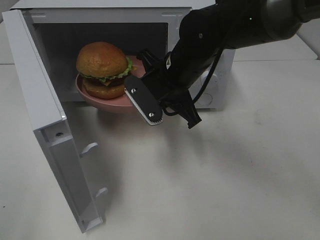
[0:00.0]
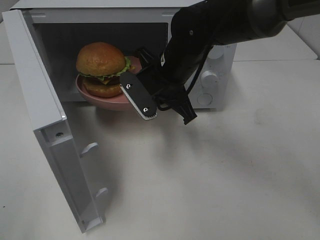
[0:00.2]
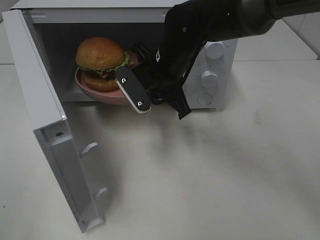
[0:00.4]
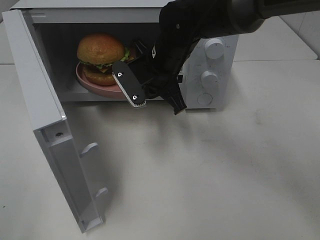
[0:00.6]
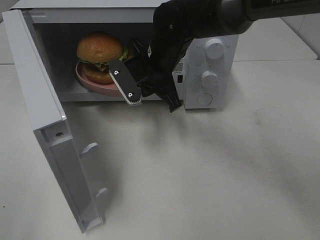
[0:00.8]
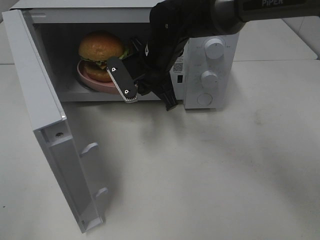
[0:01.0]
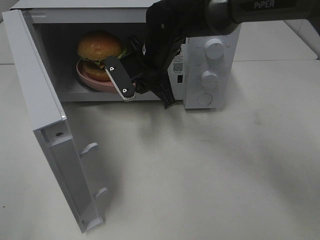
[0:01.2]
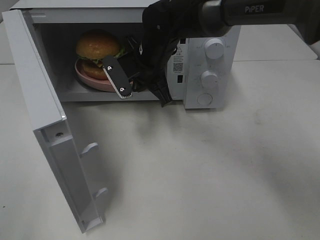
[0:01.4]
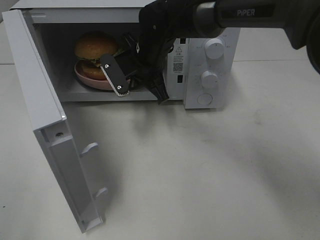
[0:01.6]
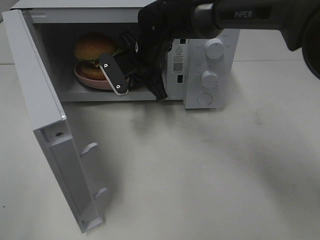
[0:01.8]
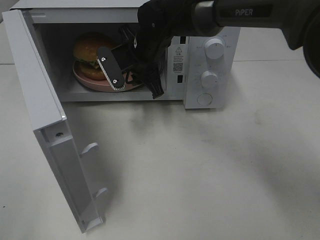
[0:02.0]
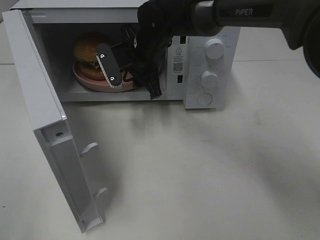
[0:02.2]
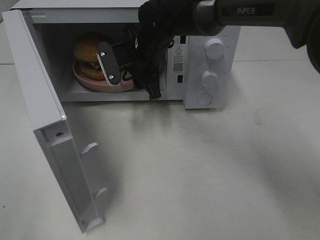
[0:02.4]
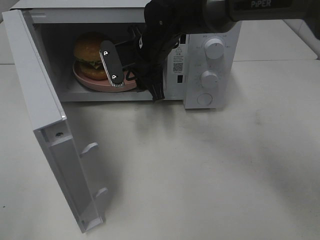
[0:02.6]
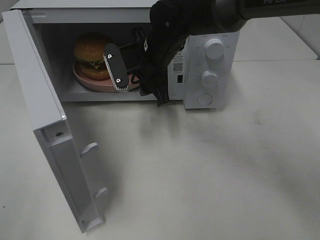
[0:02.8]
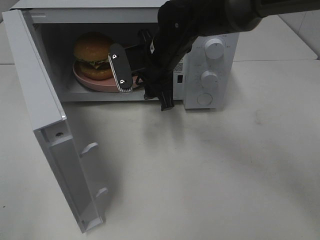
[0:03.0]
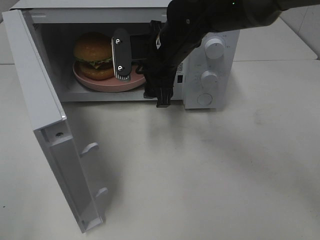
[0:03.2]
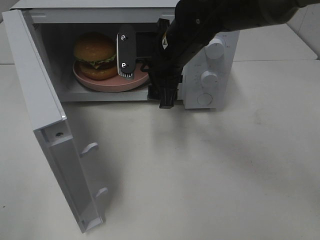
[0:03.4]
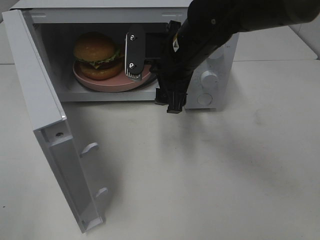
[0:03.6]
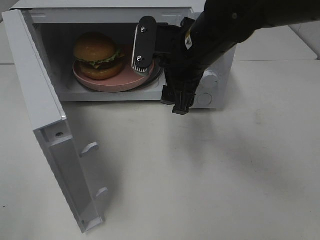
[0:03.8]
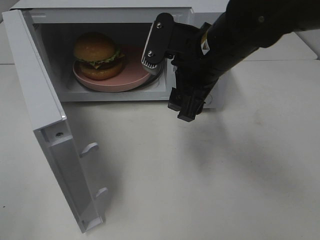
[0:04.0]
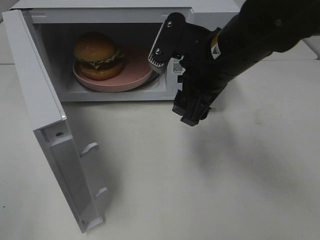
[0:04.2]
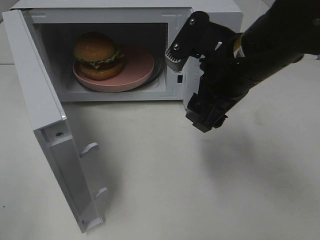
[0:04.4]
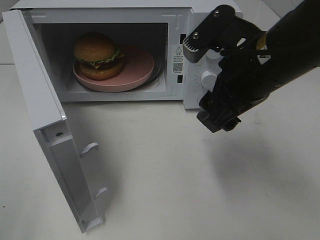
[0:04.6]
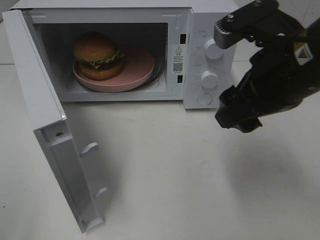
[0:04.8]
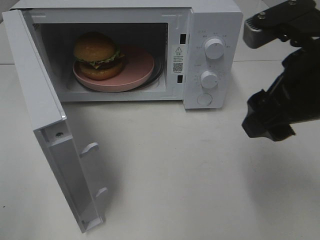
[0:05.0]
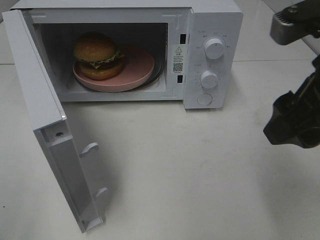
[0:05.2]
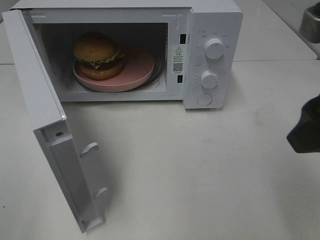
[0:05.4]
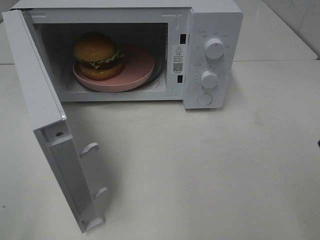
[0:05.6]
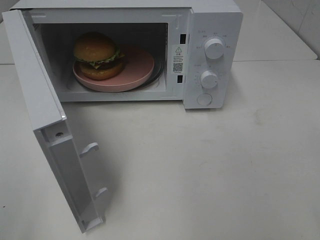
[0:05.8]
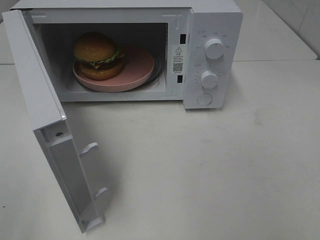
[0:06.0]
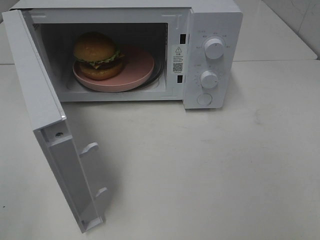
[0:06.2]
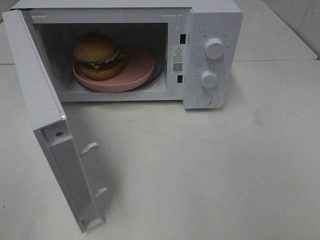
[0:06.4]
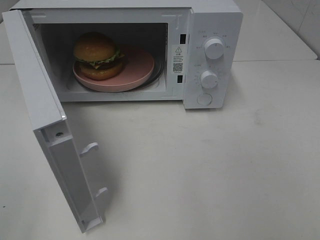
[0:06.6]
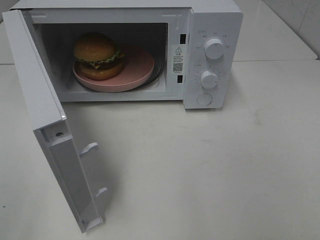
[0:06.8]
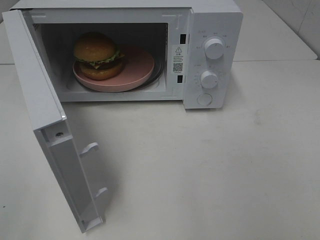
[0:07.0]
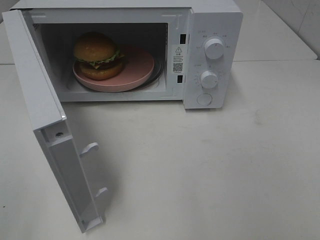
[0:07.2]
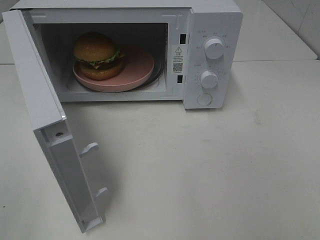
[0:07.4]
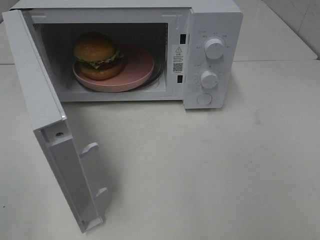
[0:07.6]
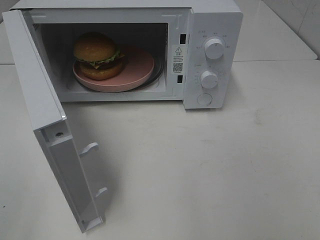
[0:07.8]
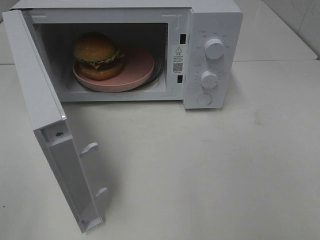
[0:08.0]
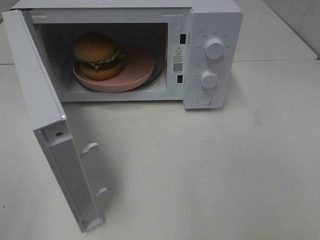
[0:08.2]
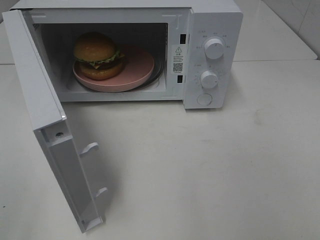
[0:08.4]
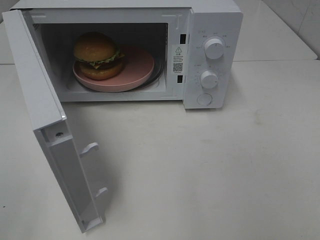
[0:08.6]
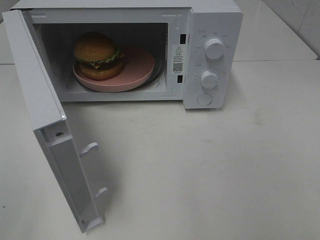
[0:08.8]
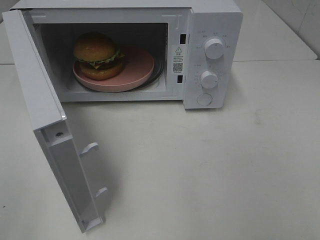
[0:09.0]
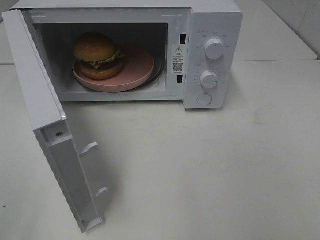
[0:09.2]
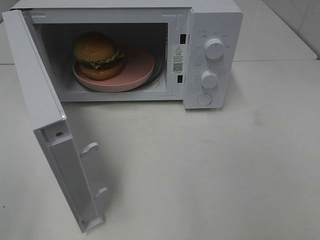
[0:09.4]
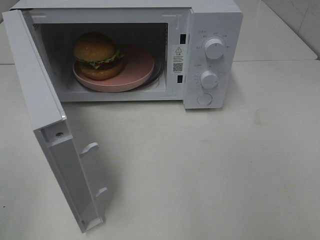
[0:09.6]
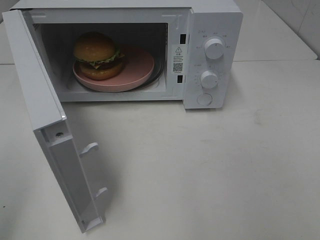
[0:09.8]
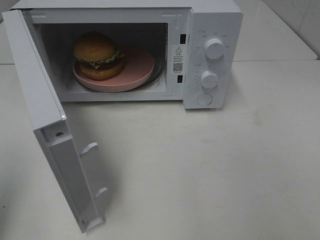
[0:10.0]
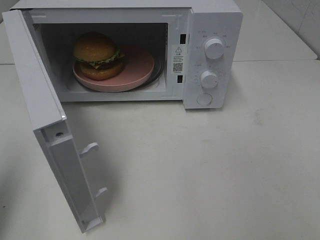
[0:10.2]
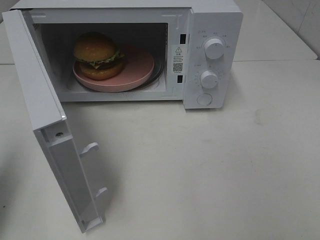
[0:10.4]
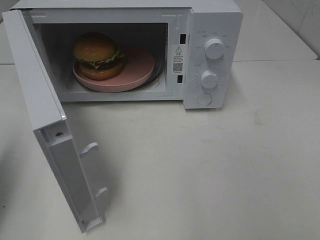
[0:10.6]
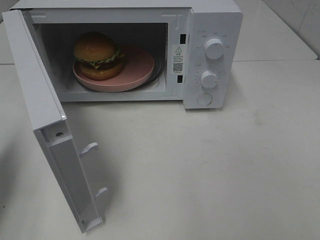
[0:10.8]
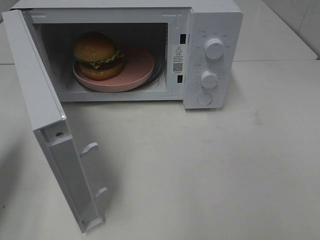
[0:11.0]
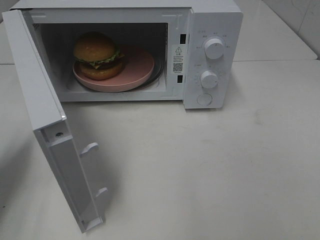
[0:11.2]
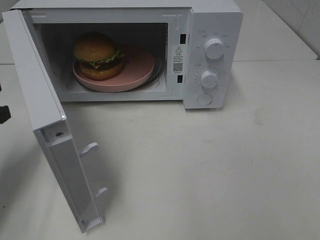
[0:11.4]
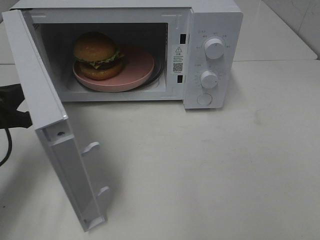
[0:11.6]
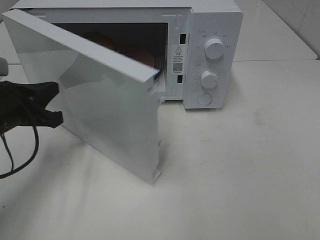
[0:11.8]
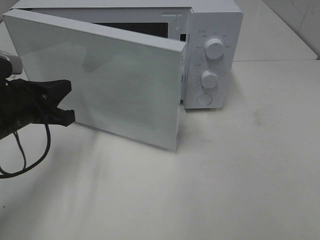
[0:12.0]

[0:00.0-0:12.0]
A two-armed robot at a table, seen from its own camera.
Task of the whole recording: Heat the burger.
Step, 0:00.0 to 0:02.8: Right hand: place the plate in the microwave.
0:00.0 to 0:01.6: The right gripper is displaced forward by roughly 10 cm.
0:01.6 to 0:03.0: The right gripper opens.
0:03.0 to 0:04.4: The right gripper goes about 15 cm backward, to the right and upward.
0:04.4 to 0:06.0: The right gripper travels backward and to the right by some 30 cm.
0:07.6 to 0:09.0: Both grippers stay about where they are.
0:09.0 to 0:10.4: The left gripper is displaced forward by some 15 cm, and closes its fingers.
0:10.4 to 0:12.0: The left gripper heads downward, forward and to the right, covering roughly 20 cm.

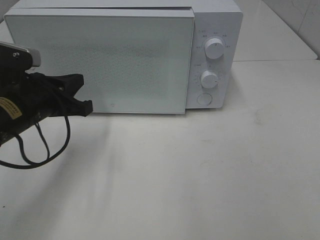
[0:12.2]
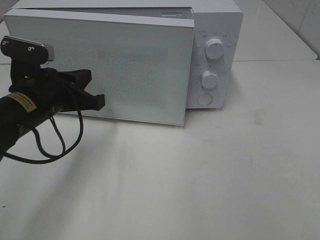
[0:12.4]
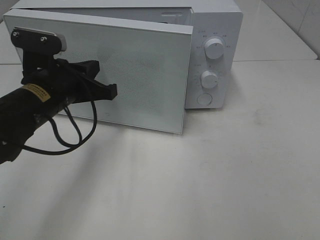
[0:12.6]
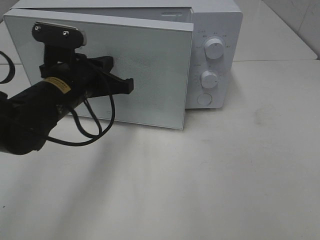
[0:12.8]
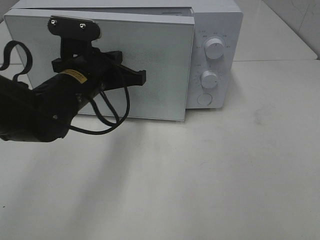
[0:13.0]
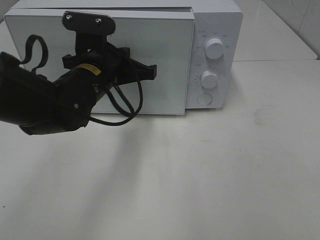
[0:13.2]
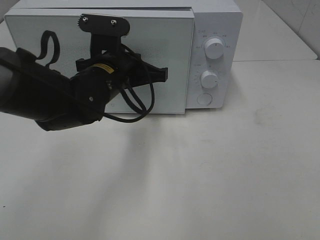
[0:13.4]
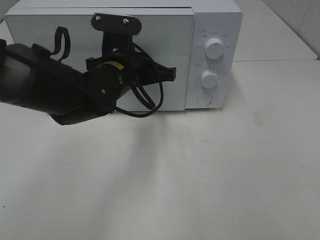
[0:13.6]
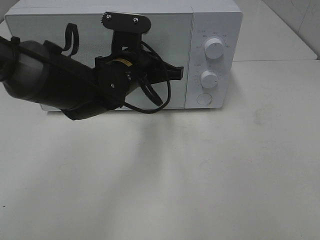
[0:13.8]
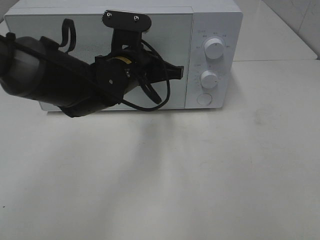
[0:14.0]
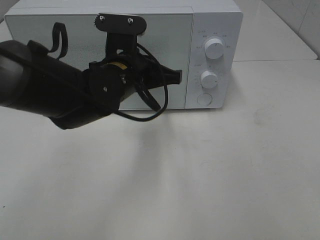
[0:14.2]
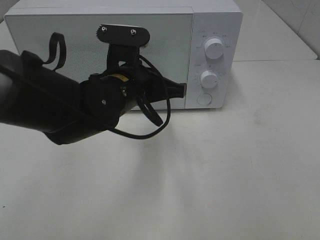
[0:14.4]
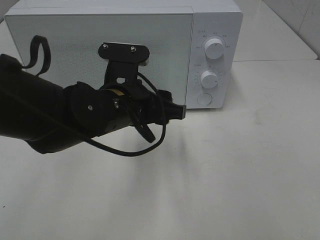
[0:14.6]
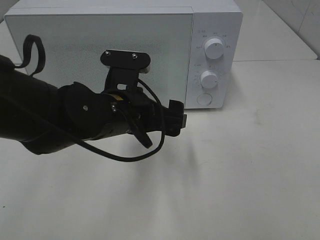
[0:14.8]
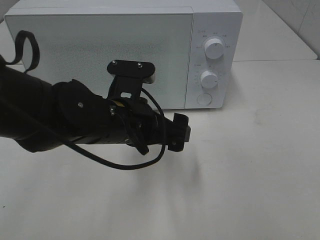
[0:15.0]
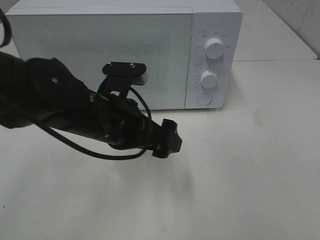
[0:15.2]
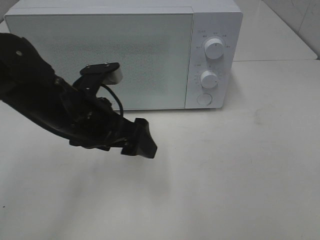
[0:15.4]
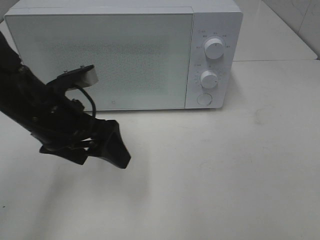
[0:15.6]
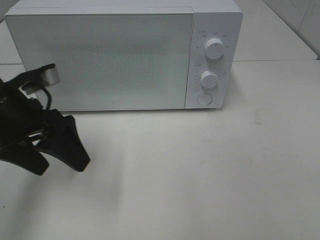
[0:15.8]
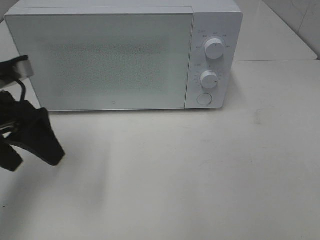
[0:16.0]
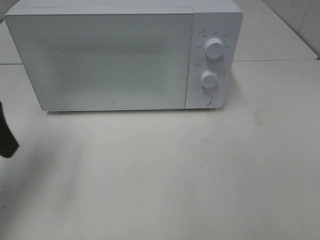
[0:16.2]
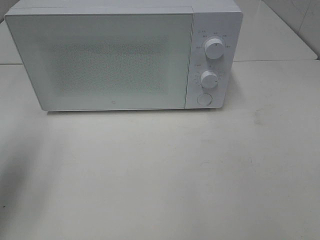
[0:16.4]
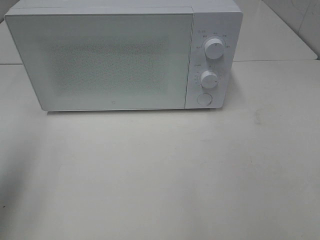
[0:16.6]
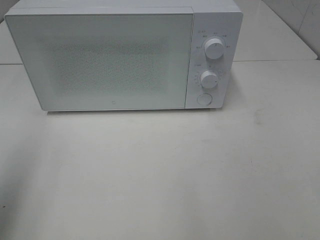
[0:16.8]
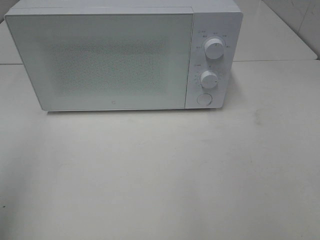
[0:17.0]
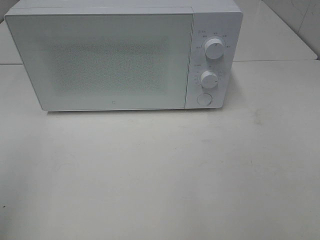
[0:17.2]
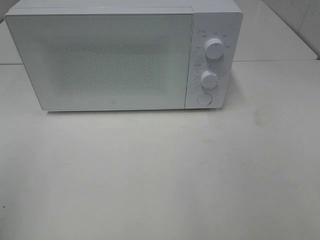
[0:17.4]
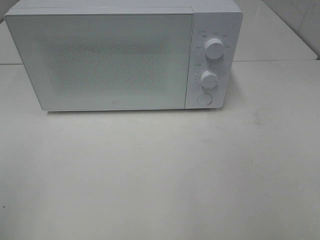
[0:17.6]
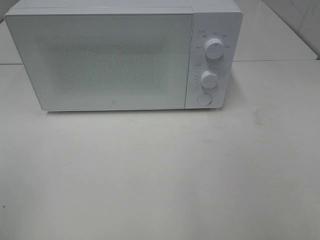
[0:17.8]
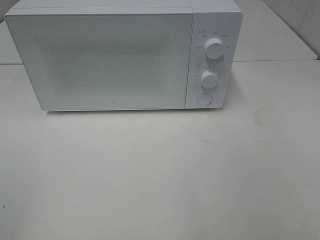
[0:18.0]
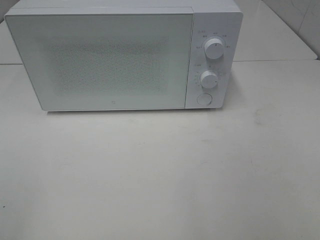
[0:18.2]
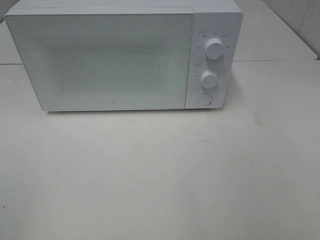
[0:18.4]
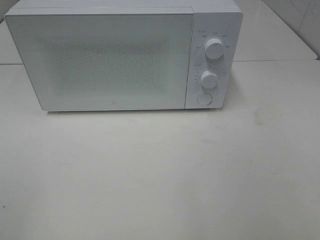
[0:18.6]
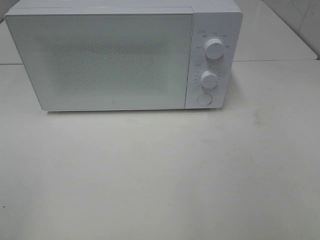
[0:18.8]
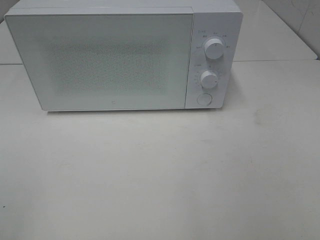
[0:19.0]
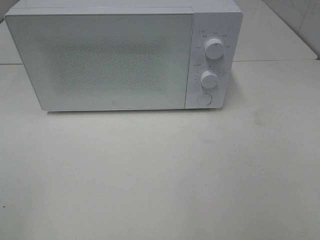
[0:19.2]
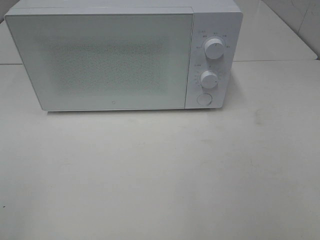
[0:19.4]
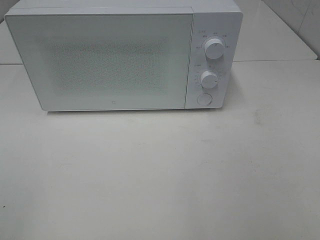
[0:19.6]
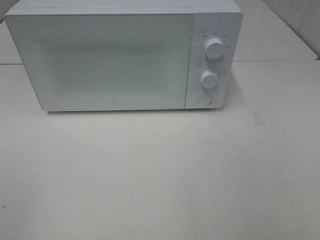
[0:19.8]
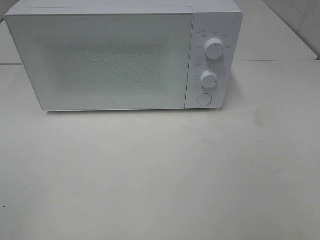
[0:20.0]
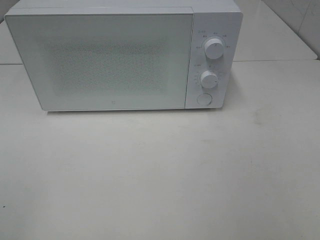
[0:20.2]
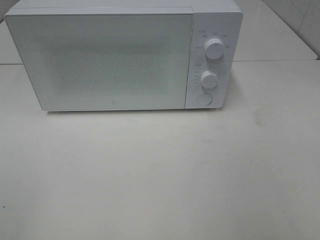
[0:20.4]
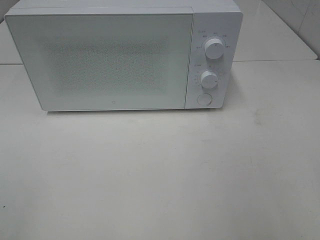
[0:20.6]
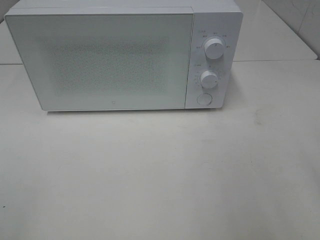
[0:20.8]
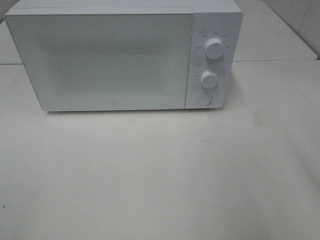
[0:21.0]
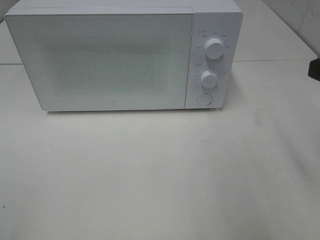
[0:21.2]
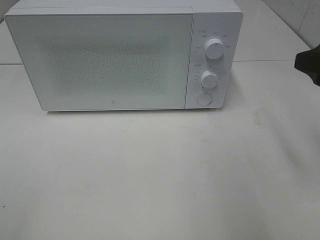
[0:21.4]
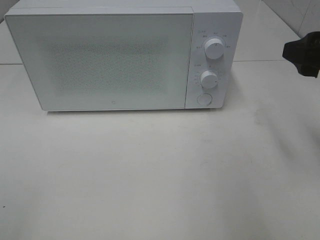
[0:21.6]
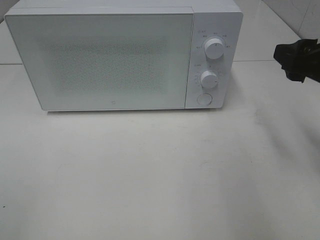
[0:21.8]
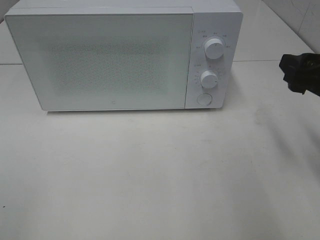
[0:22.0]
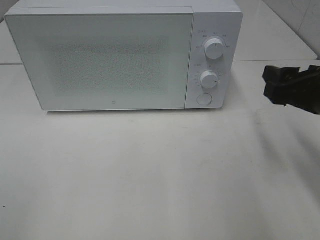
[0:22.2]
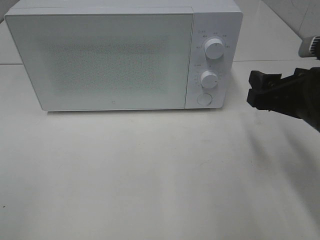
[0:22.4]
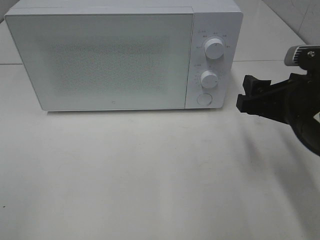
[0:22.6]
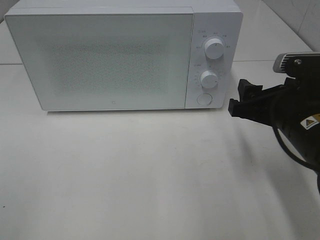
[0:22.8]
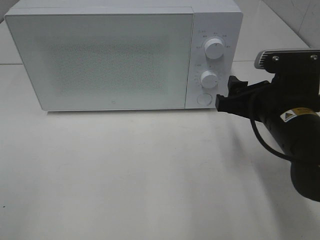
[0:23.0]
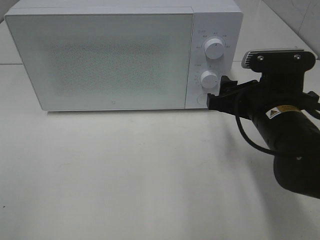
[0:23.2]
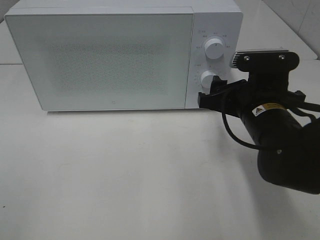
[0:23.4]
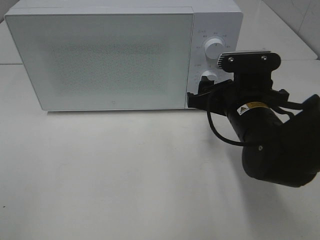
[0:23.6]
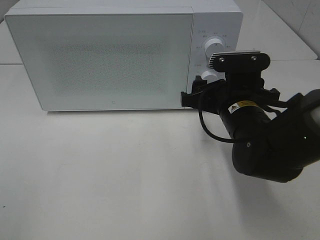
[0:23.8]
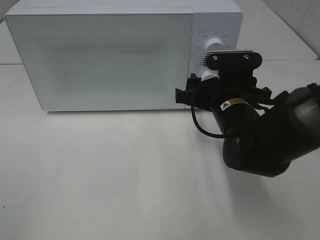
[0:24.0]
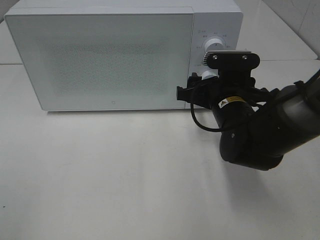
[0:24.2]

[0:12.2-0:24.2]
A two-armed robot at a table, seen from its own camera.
Task of the whole recording: Heat the burger.
Step, 0:12.2 to 0:14.6: Left hand: close the microwave door.
0:12.2 to 0:13.8: The left gripper goes approximately 15 cm to the right and forward.
0:13.8 to 0:15.2: The left gripper moves backward, approximately 10 cm, and opens.
0:15.2 to 0:16.6: The left gripper travels to the left and upward by roughly 30 cm.
0:16.6 to 0:18.2: The left gripper goes about 15 cm backward.
0:18.2 to 0:19.8: The two grippers keep their place.
0:21.2 to 0:22.6: The right gripper moves downward and to the left, about 10 cm.
0:22.6 to 0:24.2: The right gripper travels forward, to the left and downward by approximately 15 cm.
